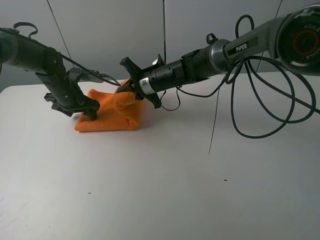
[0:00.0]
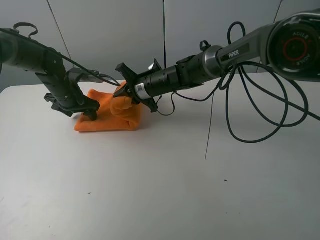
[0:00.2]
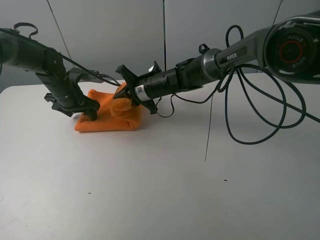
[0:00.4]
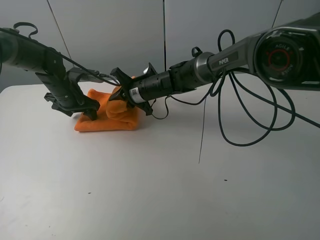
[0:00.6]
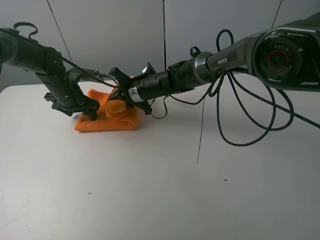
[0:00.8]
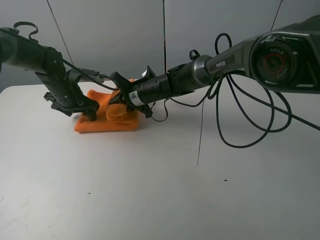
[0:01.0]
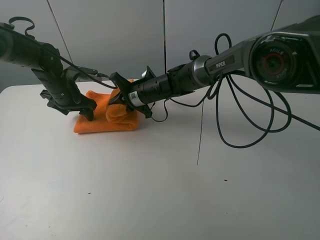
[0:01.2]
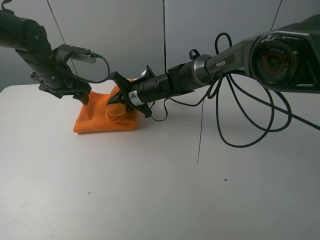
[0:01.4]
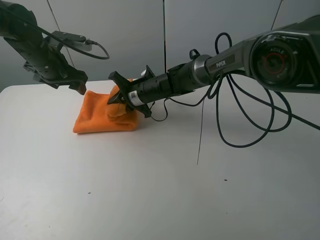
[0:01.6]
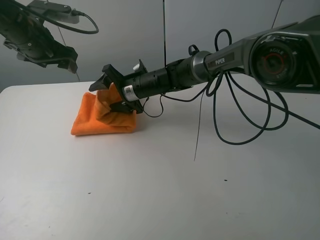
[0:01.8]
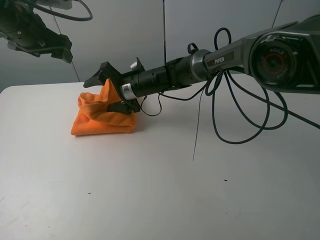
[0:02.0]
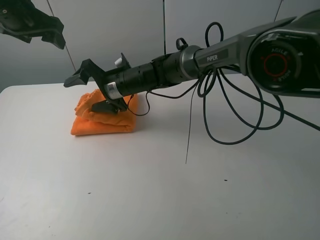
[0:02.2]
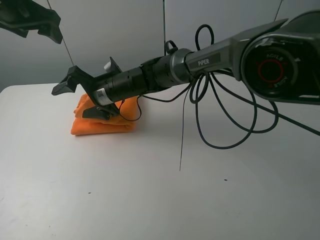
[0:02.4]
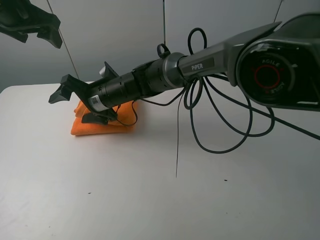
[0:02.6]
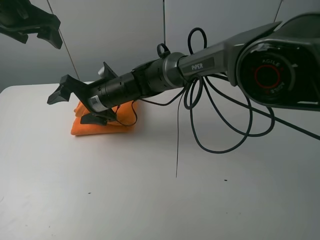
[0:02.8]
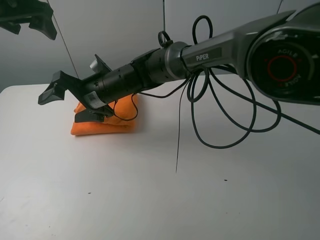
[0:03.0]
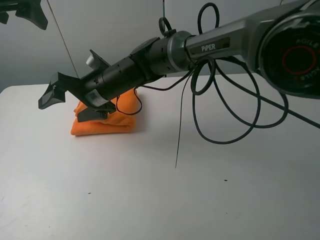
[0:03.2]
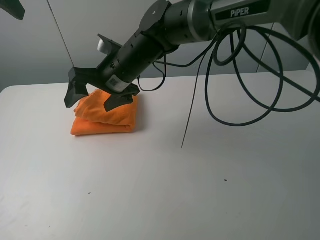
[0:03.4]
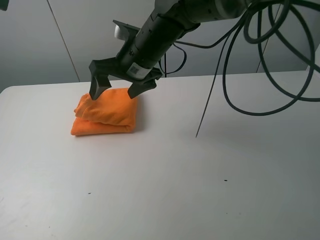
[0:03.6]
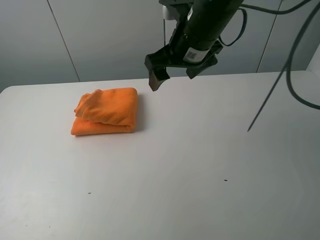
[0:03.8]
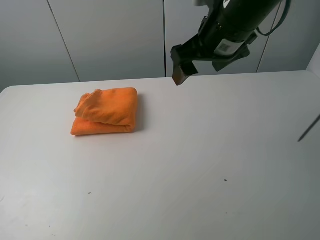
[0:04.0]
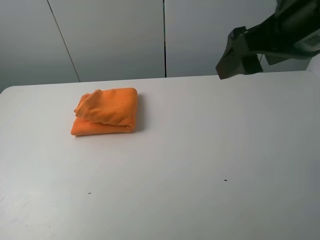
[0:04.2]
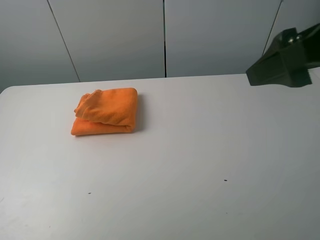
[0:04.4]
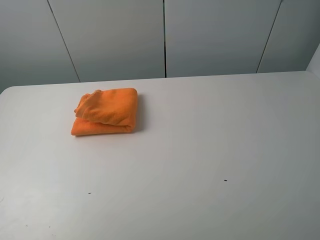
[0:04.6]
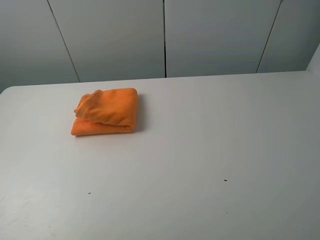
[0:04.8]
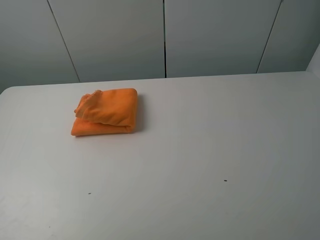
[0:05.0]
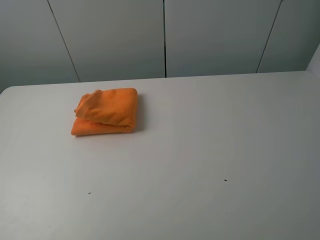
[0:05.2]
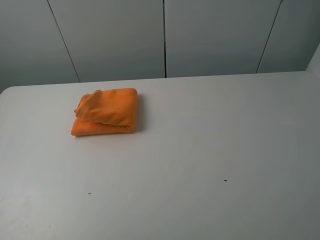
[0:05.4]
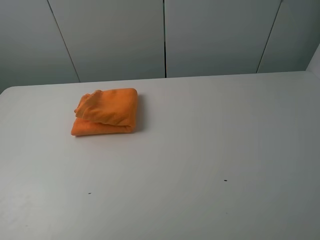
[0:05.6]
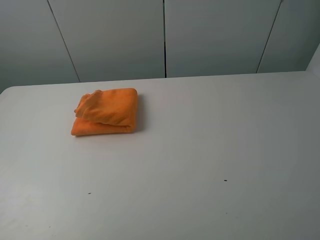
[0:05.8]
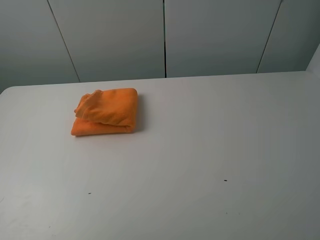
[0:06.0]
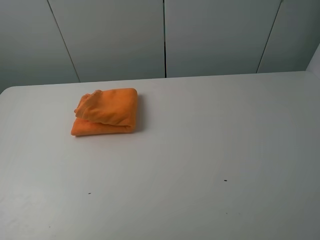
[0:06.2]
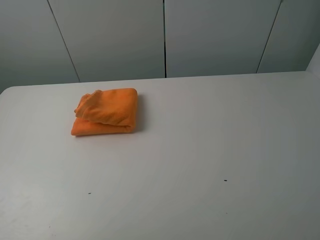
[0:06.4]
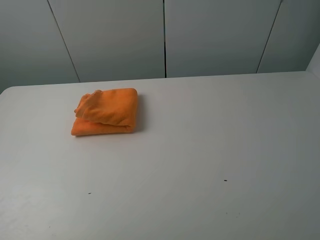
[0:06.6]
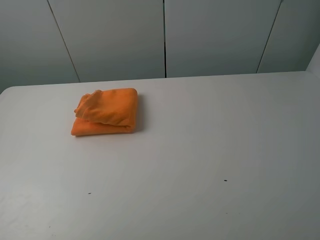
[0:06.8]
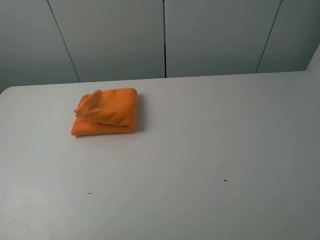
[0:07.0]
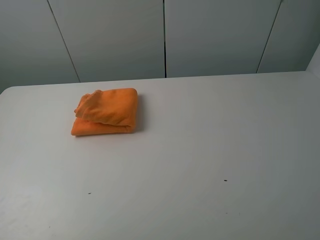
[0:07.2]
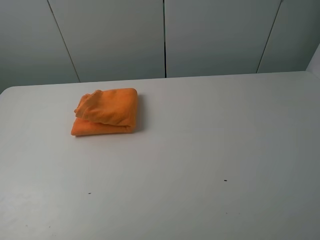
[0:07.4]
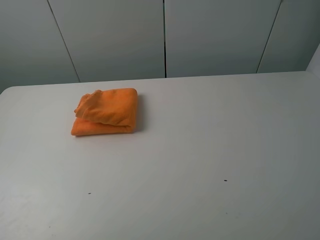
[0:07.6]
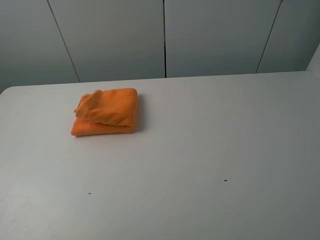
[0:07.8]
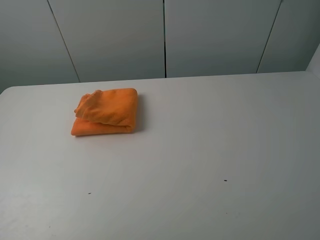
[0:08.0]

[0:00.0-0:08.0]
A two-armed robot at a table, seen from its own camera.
Task of the whole recording: fold the towels on the table.
Step, 0:00.0 to 0:02.0: Fold the orange towel from right to left with right gripper.
Step, 0:02.2 to 0:03.0: Arrange the orange towel with the right hand.
0:00.0 to 0:01.6: The left gripper travels upward by approximately 10 cm.
0:01.6 to 0:03.2: The left gripper shifts roughly 20 cm upward and backward; the right gripper shifts roughly 15 cm upward, backward and to the left, and opens up.
0:03.2 to 0:04.8: The right gripper moves to the right, backward and upward, roughly 50 cm; the left gripper is displaced backward by approximately 30 cm.
0:04.8 to 0:06.4: The left gripper shifts roughly 5 cm downward.
